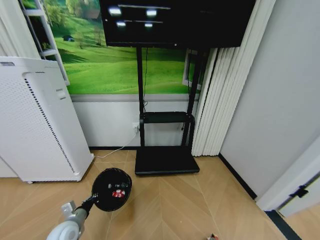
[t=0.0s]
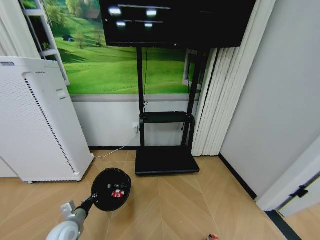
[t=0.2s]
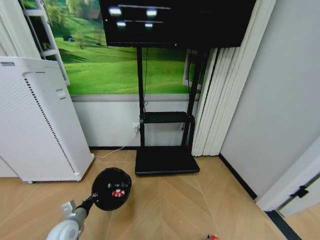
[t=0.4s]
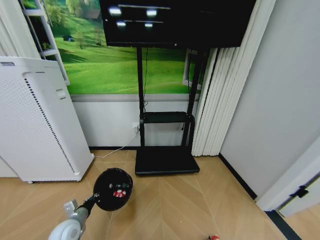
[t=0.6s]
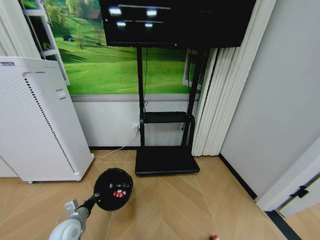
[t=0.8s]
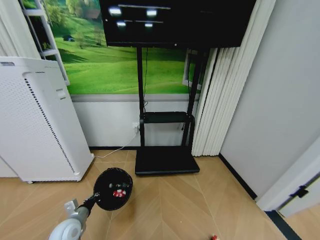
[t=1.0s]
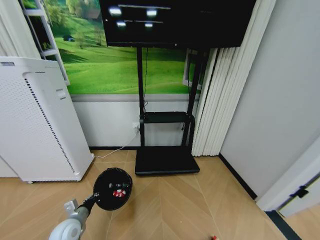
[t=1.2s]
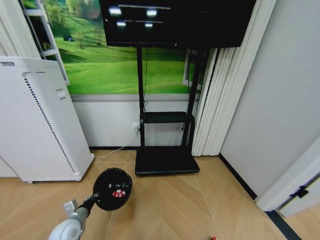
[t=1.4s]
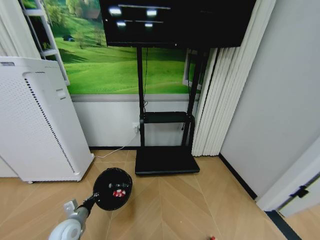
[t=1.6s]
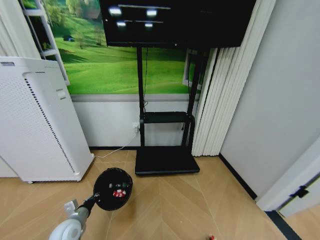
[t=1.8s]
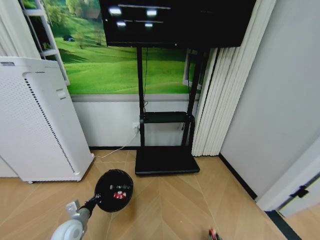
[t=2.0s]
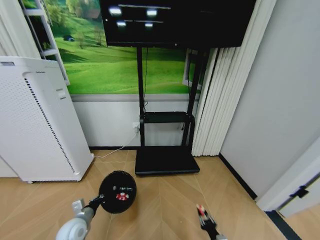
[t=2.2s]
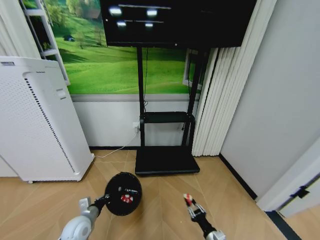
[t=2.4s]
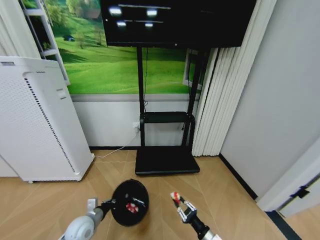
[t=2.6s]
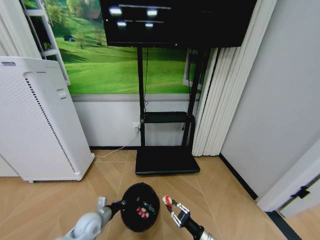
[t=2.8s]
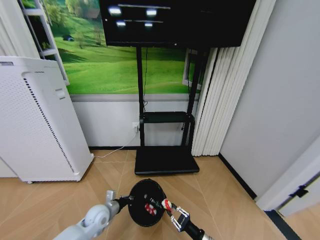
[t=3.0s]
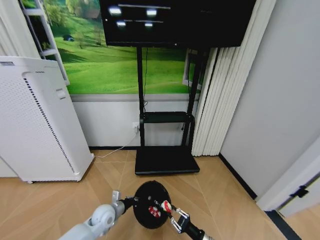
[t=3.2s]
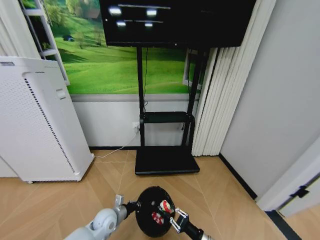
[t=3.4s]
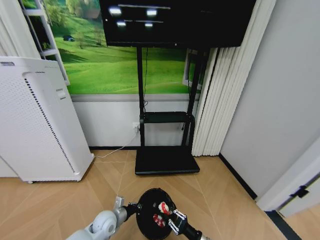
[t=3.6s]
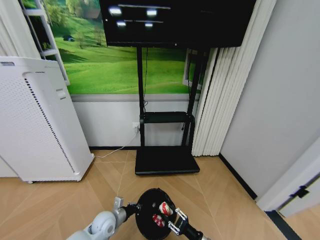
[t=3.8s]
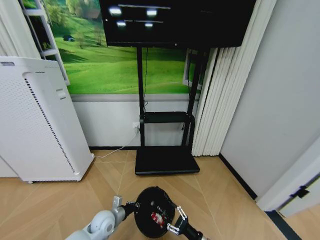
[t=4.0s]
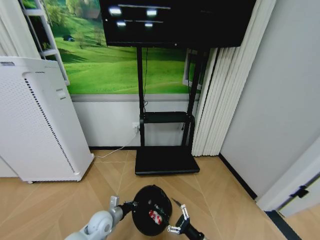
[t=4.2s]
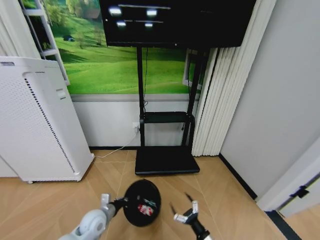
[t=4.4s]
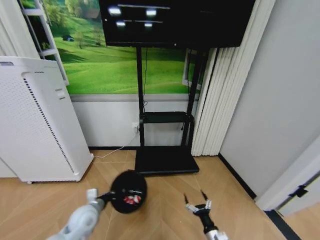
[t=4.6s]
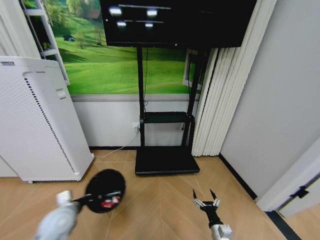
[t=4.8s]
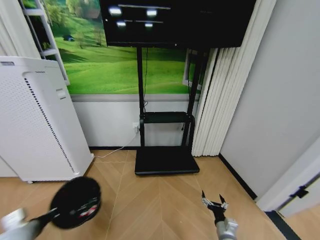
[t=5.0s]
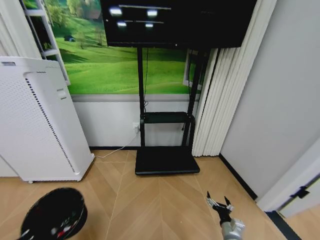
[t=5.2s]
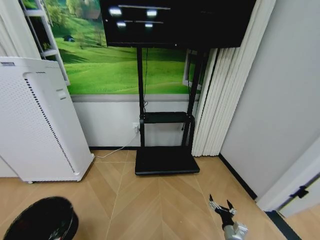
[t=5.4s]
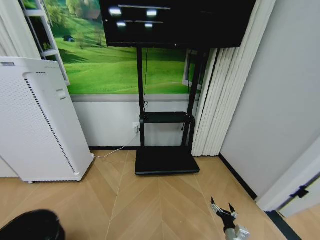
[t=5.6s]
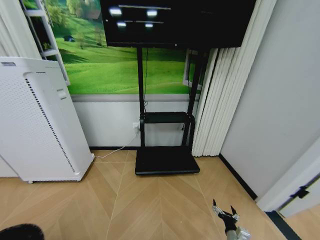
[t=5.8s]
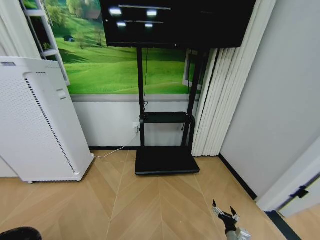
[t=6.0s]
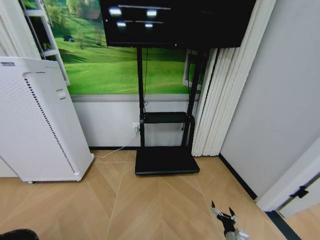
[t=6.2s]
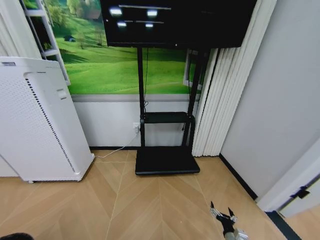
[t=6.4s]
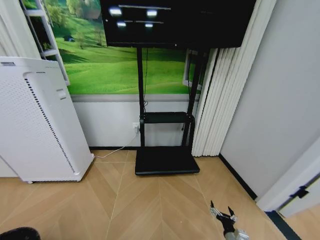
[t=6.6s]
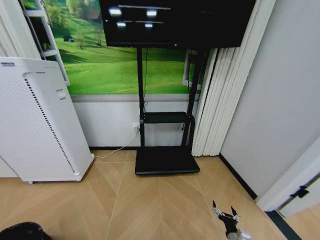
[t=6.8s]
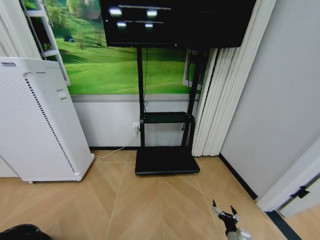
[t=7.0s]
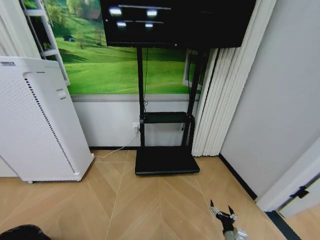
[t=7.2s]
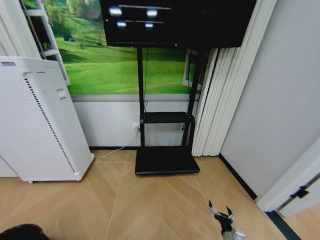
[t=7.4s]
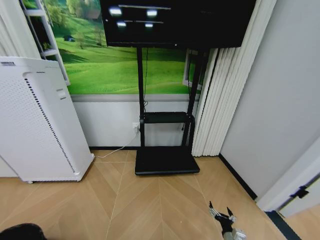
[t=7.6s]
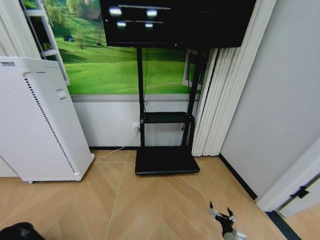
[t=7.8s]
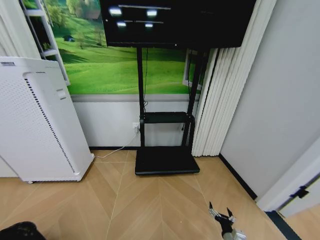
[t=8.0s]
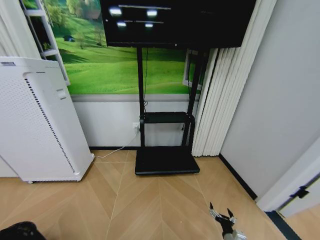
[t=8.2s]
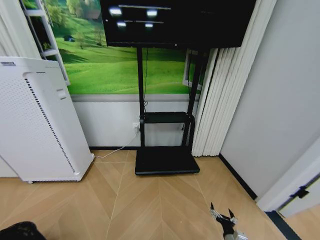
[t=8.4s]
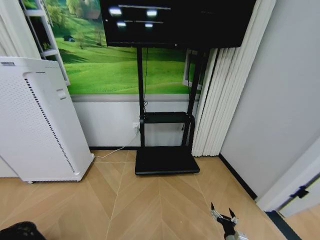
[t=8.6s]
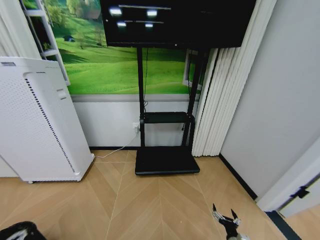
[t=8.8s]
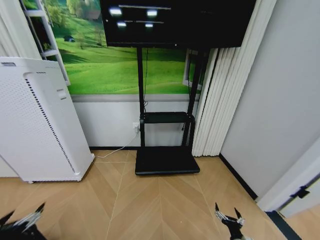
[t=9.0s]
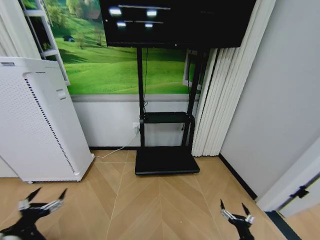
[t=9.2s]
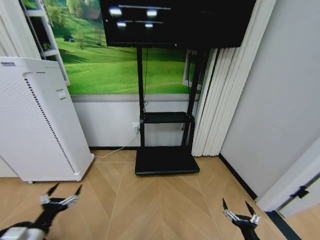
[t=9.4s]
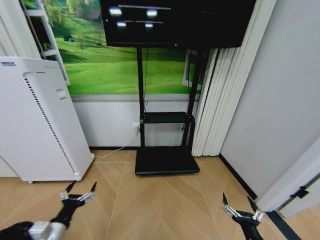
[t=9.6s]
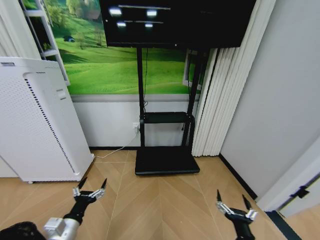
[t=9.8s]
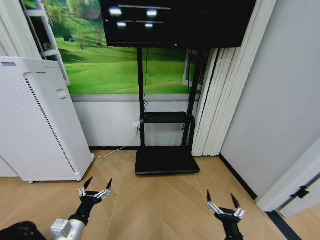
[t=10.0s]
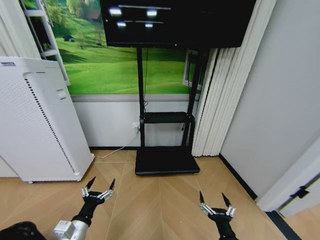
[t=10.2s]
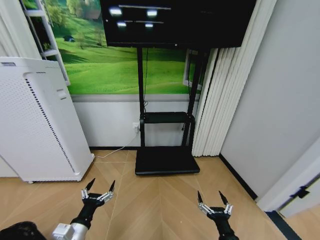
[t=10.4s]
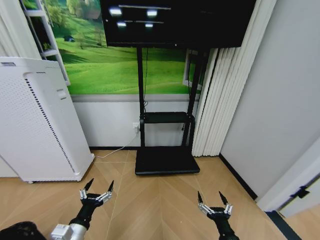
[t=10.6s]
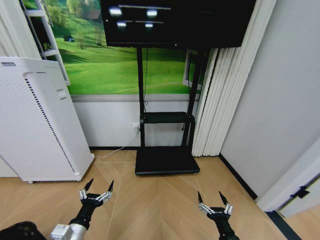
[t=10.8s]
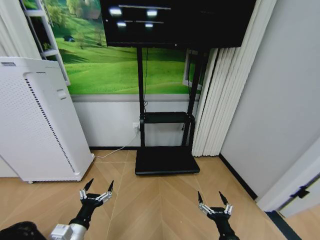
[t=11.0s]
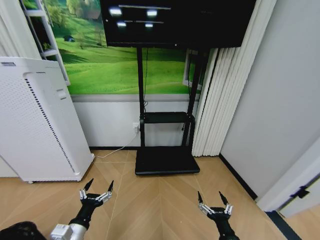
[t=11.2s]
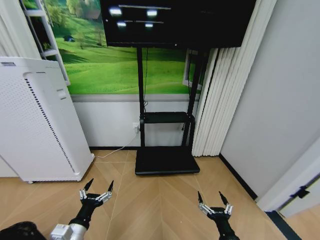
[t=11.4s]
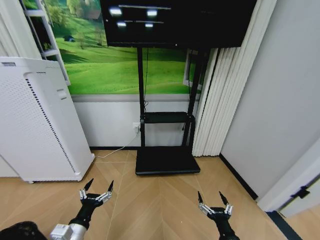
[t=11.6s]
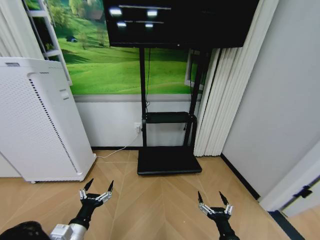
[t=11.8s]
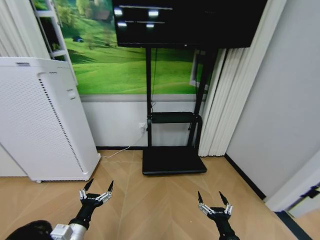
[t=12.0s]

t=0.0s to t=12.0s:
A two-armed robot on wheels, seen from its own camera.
Task of the whole recording: Pick up the trash bin and place the garbage on the floor into it.
t=1.6s to t=3.0s: The right gripper goes some 10 cm upward, while the left gripper shifts about 10 cm to the right and forward.
t=3.0s to t=4.4s: The right gripper opens.
t=4.4s to t=6.0s: The left gripper is displaced to the left and backward by about 40 cm. The right gripper goes roughly 10 cm to the right.
t=7.6s to t=9.0s: The left gripper goes approximately 15 cm to the right and upward, and opens its fingers.
t=9.0s to t=10.4s: The left gripper goes roughly 15 cm to the right. The right gripper moves upward and to the left, roughly 15 cm.

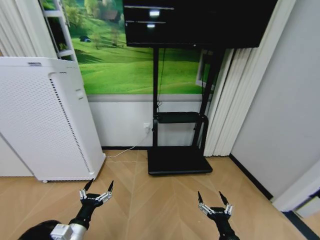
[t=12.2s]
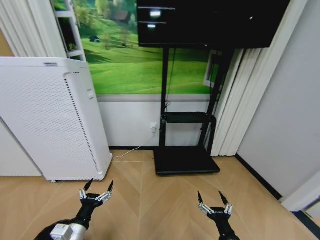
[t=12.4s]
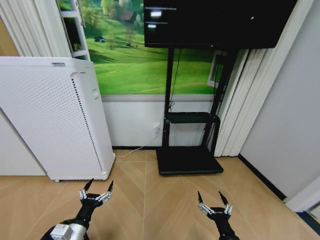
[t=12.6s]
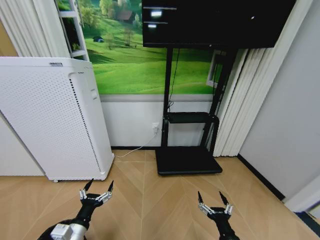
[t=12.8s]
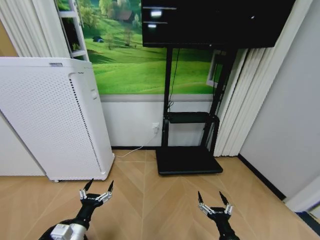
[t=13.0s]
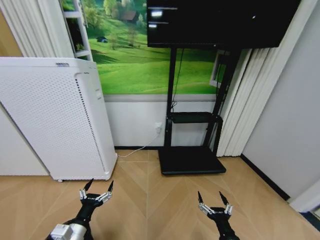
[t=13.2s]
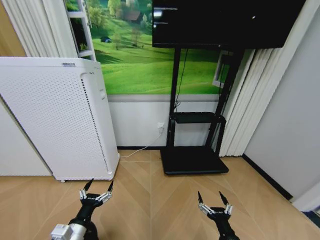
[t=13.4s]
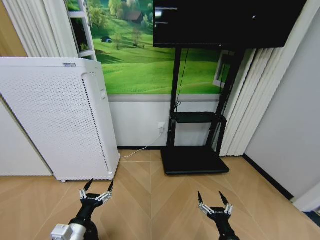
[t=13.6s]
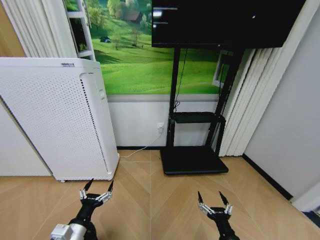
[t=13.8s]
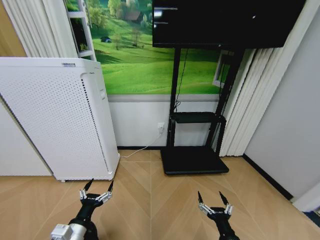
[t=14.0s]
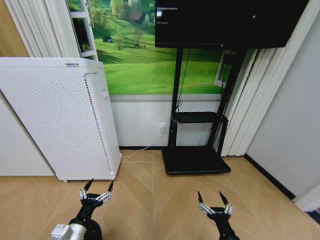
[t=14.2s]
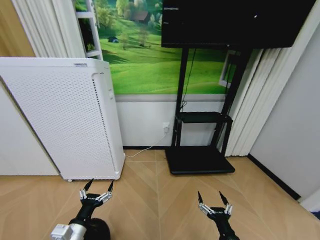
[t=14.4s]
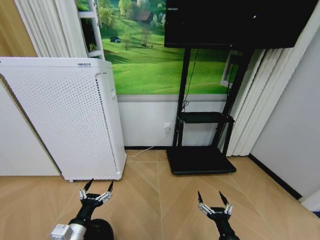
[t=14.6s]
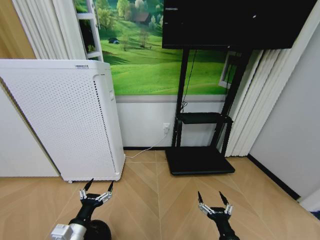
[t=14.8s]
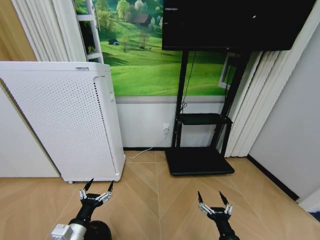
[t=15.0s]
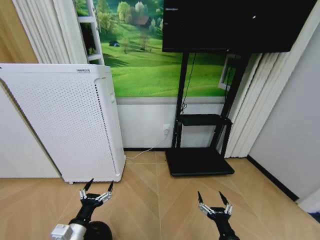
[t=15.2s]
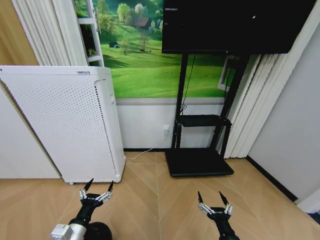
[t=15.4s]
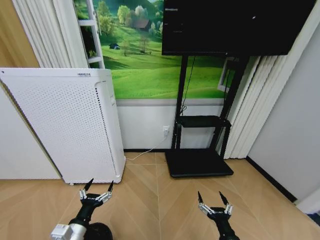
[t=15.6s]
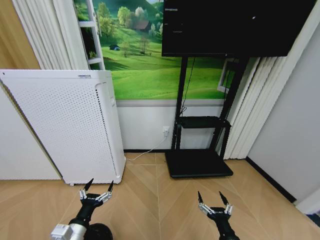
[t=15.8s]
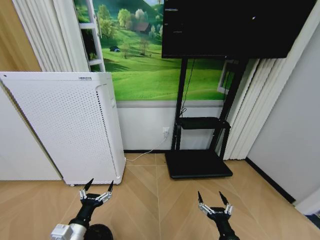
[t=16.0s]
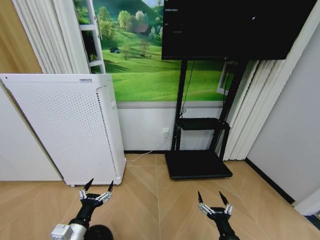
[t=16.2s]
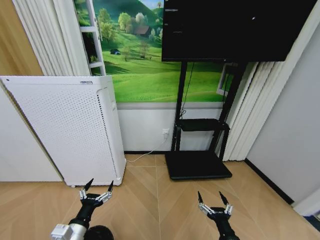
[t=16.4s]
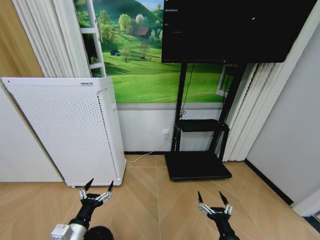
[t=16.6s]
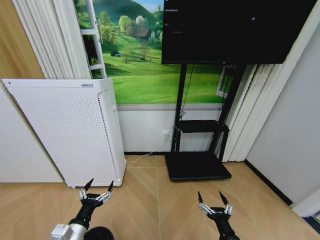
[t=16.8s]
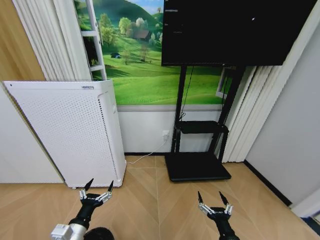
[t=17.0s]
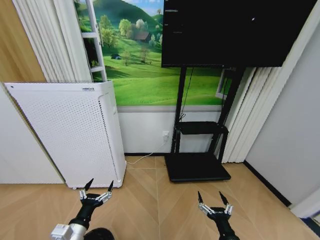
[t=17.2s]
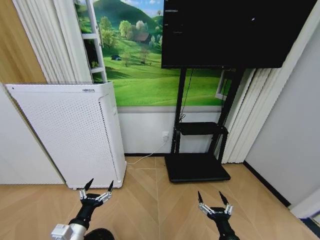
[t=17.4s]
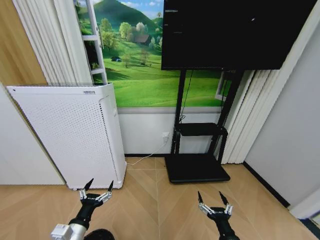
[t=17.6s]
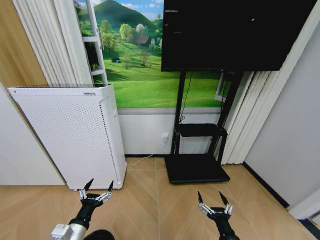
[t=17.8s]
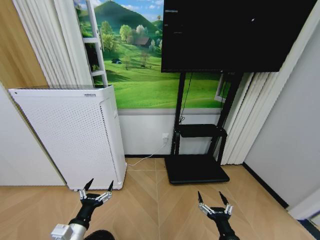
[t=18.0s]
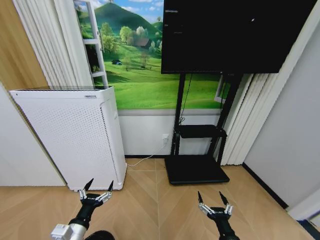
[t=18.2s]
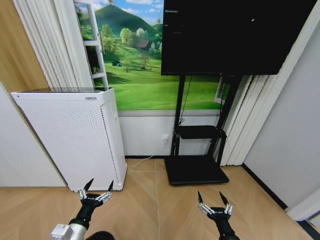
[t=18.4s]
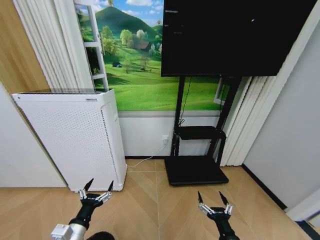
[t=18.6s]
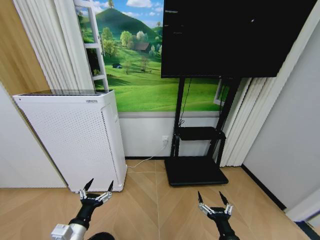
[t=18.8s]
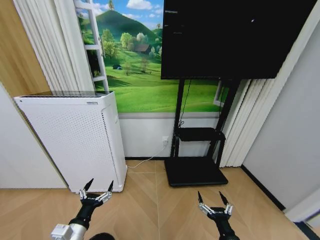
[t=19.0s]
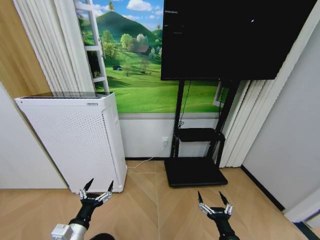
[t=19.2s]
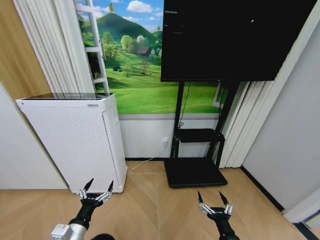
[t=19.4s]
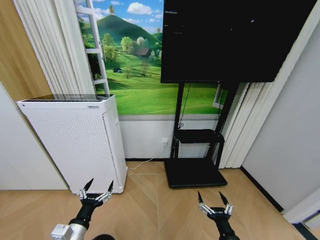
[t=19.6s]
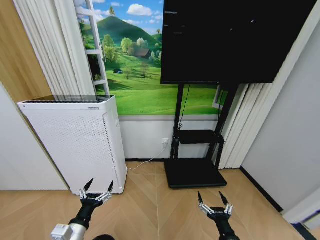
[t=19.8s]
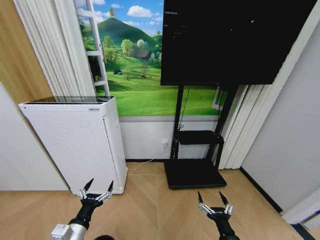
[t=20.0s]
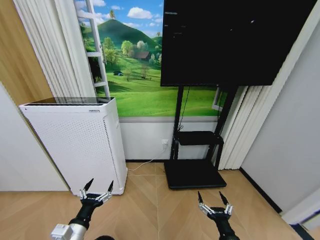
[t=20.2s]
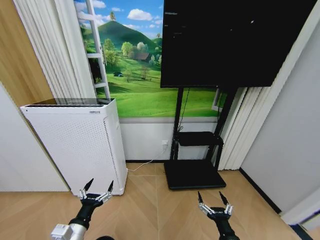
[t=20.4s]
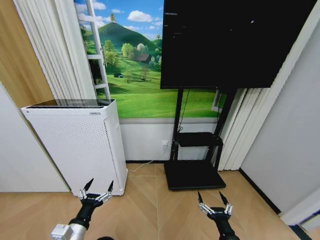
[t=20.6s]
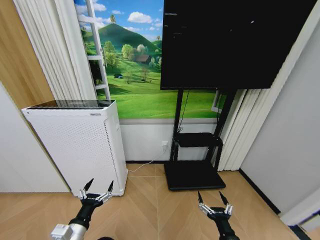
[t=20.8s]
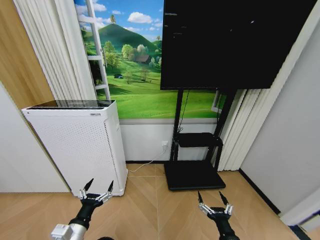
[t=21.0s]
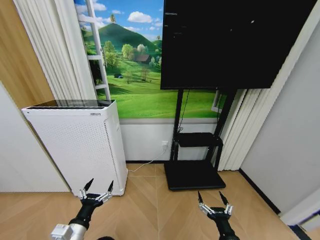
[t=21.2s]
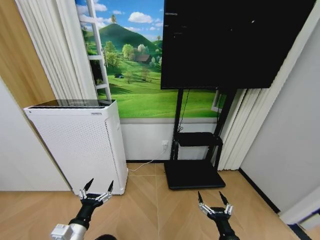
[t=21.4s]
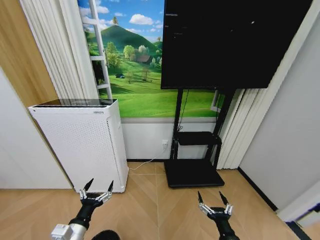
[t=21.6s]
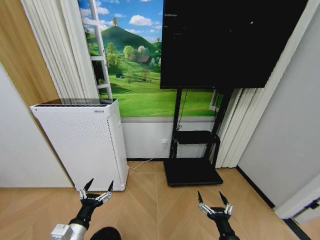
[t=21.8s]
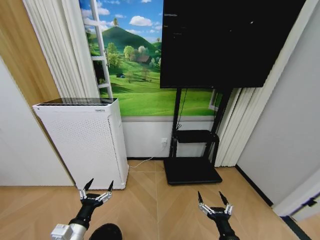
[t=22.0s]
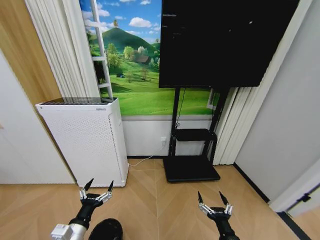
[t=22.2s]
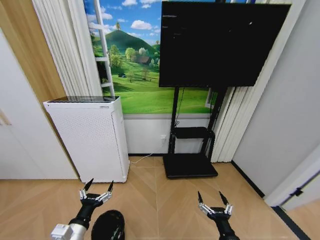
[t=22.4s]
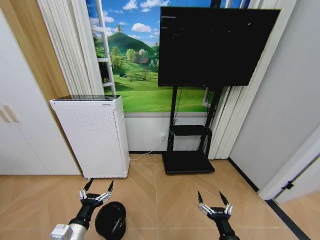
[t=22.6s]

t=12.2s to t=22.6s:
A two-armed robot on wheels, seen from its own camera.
Task of the whole recording: Pick up the trash bin and place the garbage on the floor into it.
t=15.2s to t=21.2s: The two grippers keep their place.
